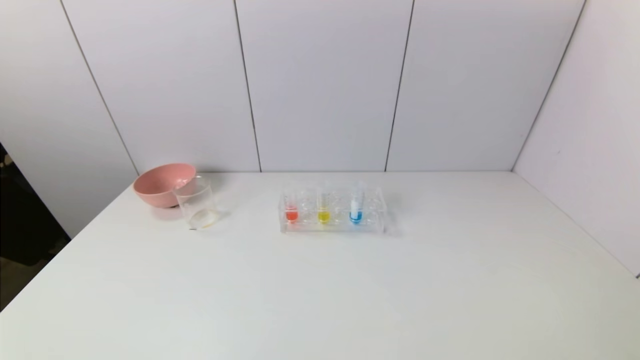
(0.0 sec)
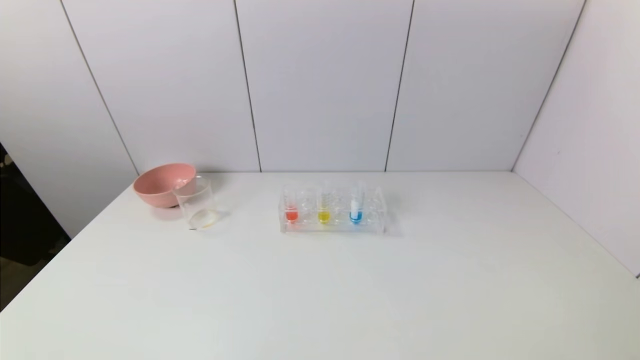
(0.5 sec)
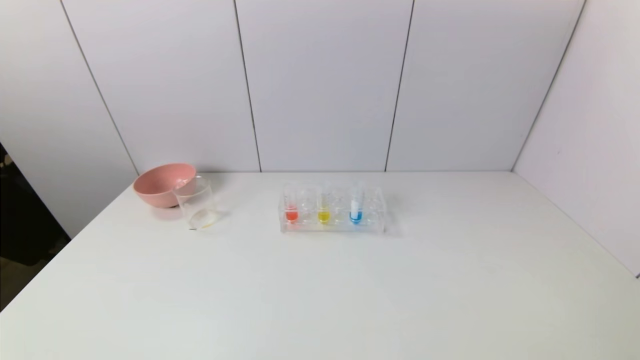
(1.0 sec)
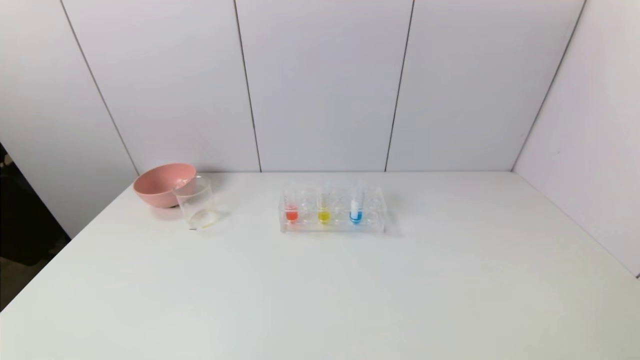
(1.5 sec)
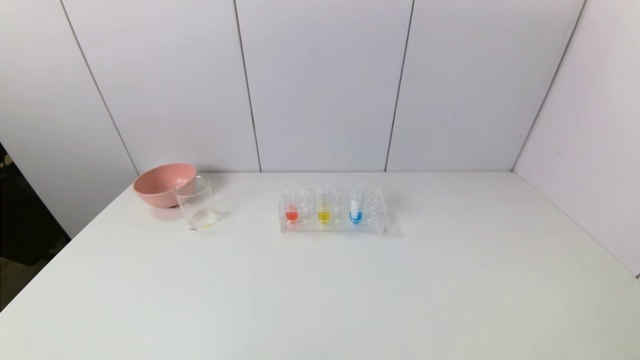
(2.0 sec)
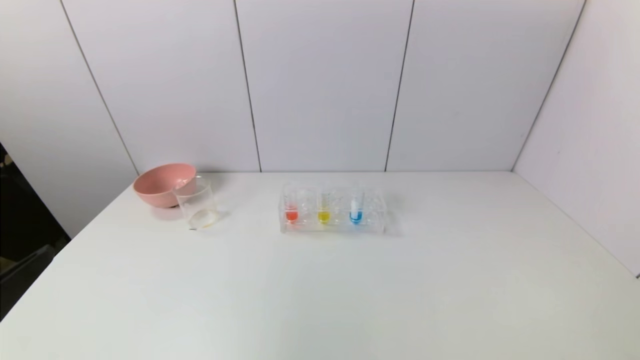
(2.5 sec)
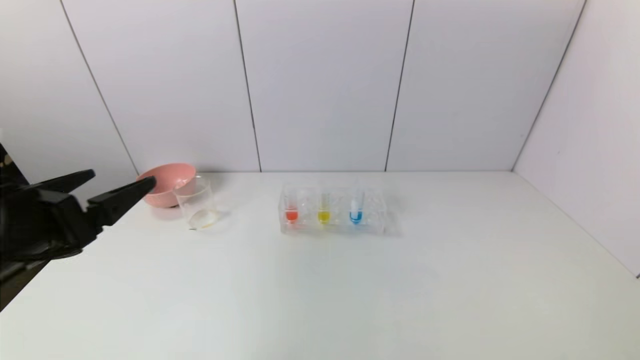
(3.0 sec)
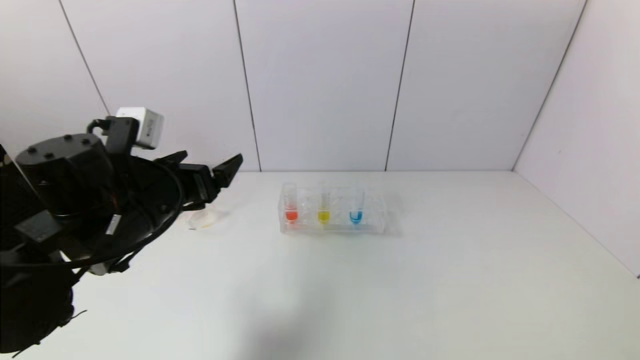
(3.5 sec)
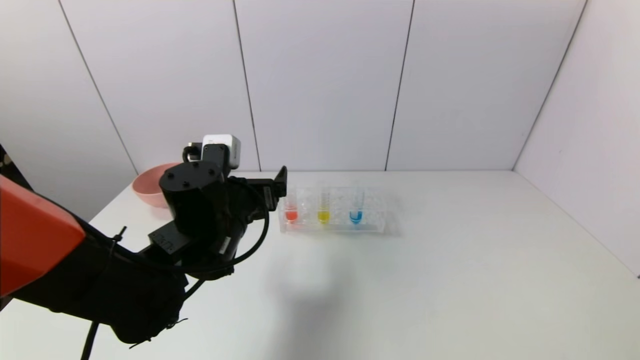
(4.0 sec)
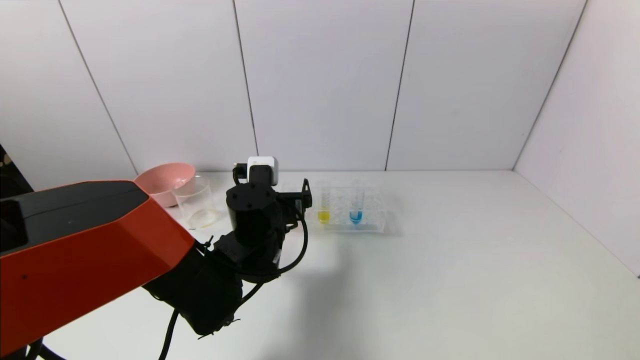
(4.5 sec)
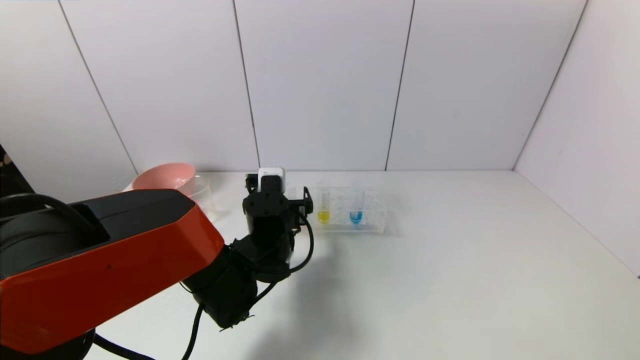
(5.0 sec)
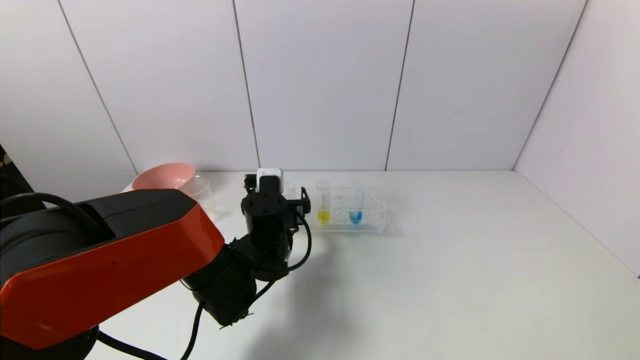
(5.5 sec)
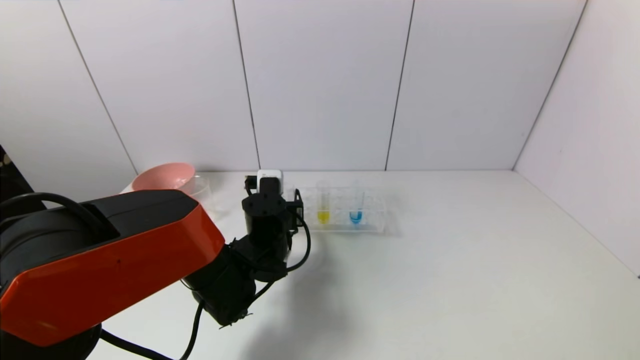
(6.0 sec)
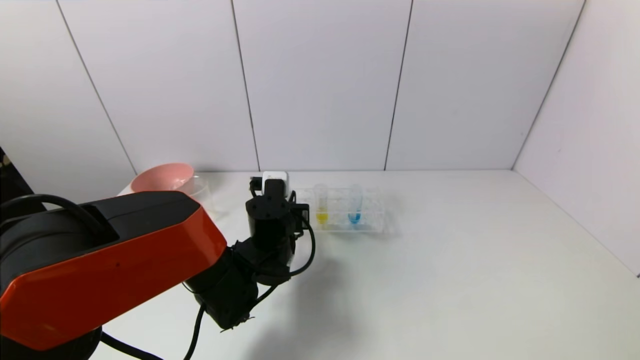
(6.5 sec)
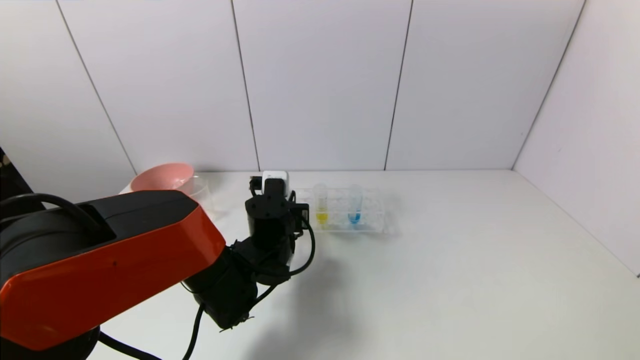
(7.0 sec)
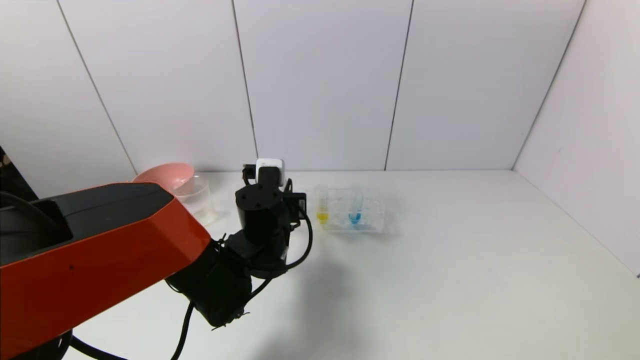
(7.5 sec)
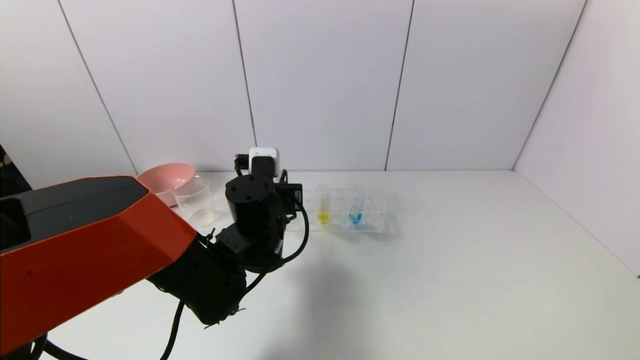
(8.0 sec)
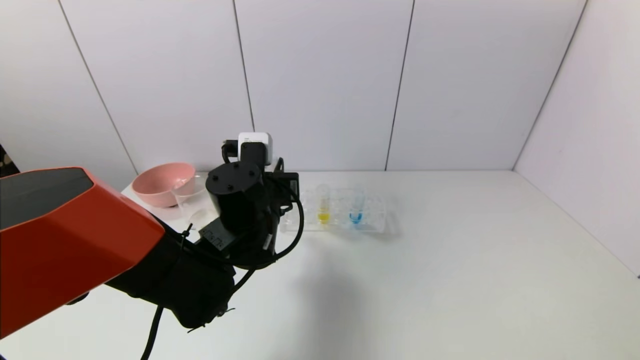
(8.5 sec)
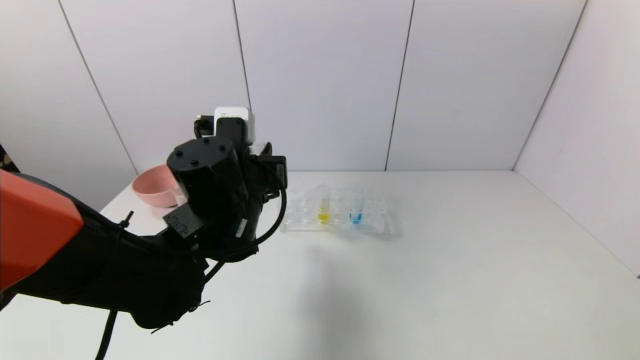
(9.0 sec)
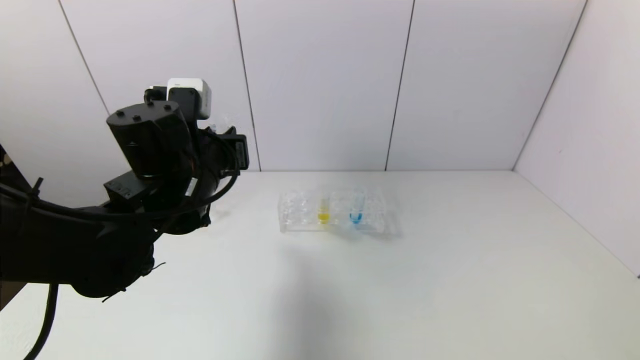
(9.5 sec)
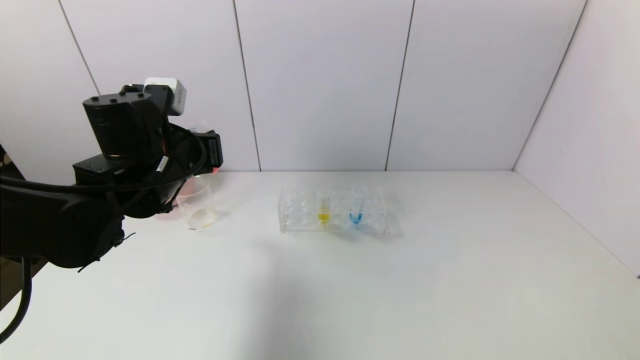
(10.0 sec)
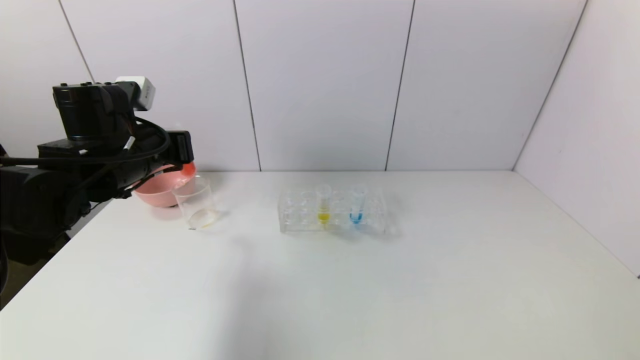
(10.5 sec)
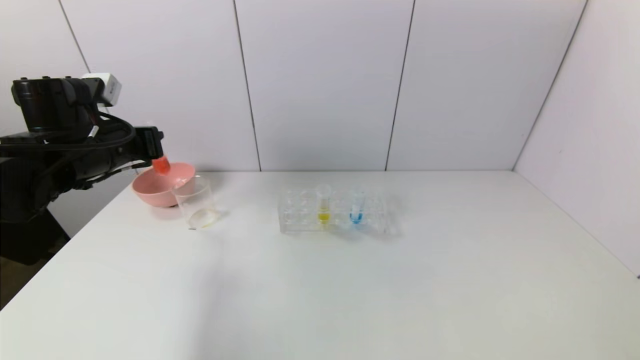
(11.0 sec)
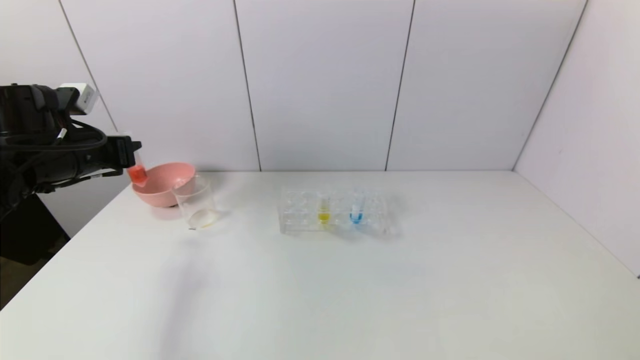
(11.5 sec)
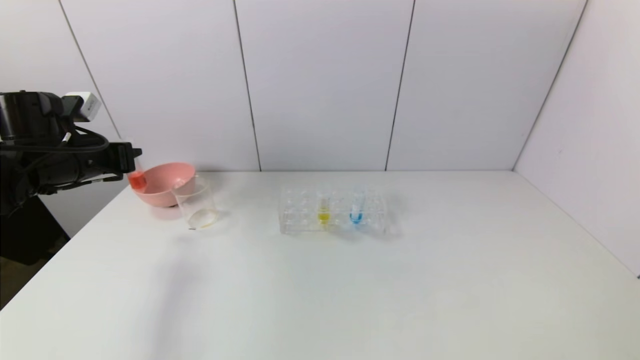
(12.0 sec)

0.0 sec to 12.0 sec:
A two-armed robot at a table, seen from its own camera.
Task of the whole recording: pick up the test tube with yellow pigment and the test tube with red pigment by grippers and pour them into the beaker.
Step, 0.0 sec to 6.5 sec: Grasp the red reagent with the left gripper.
2.0 sec to 4.0 sec: The left gripper is displaced forward and to the right by about 35 cm.
4.0 sec to 6.0 sec: The left gripper is displaced downward and forward by approximately 10 cm, and closes.
6.0 sec to 8.0 sec: The left gripper ends up about 5 cm from where it was, and closes.
8.0 sec to 10.0 sec: The left gripper heads to the left and upward, covering approximately 15 cm.
10.0 sec to 12.0 sec: The left gripper is displaced to the left by some 15 cm.

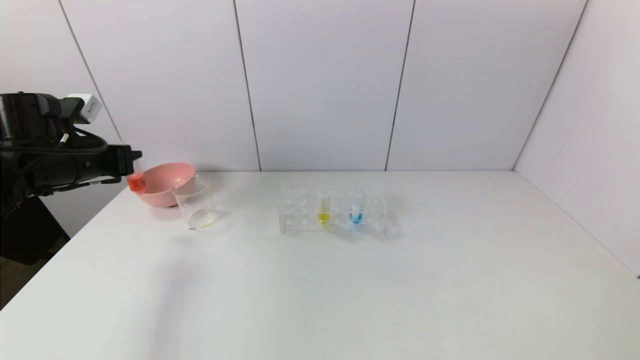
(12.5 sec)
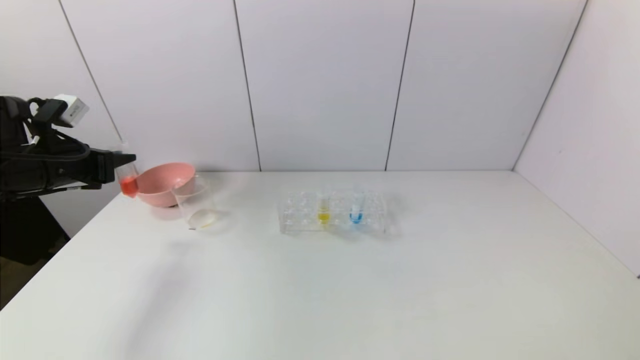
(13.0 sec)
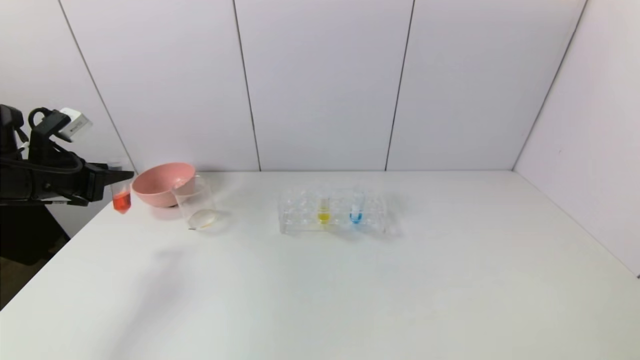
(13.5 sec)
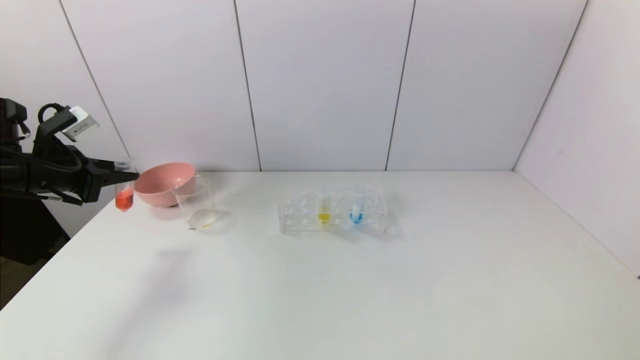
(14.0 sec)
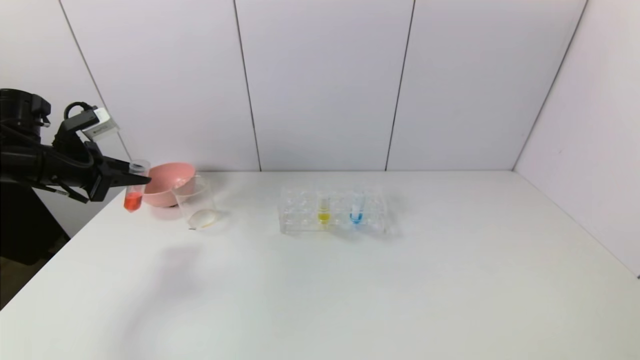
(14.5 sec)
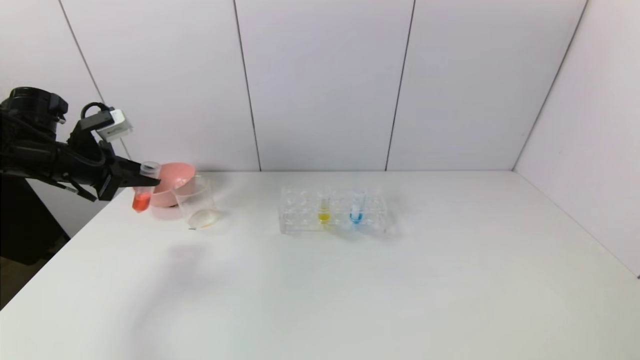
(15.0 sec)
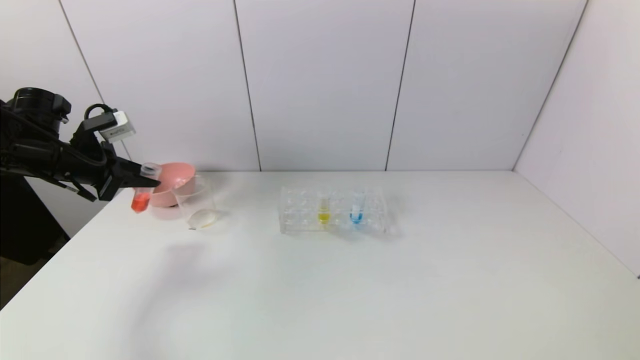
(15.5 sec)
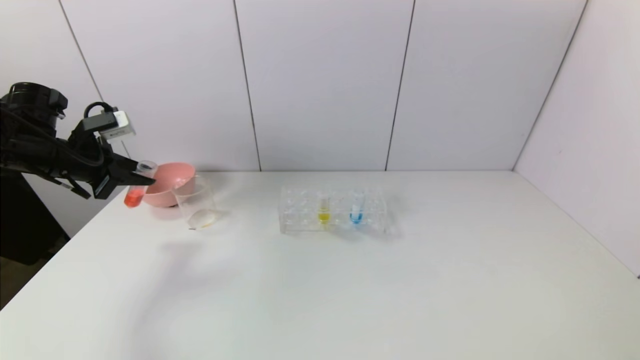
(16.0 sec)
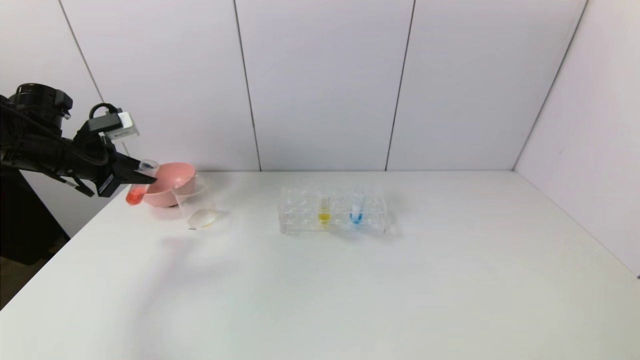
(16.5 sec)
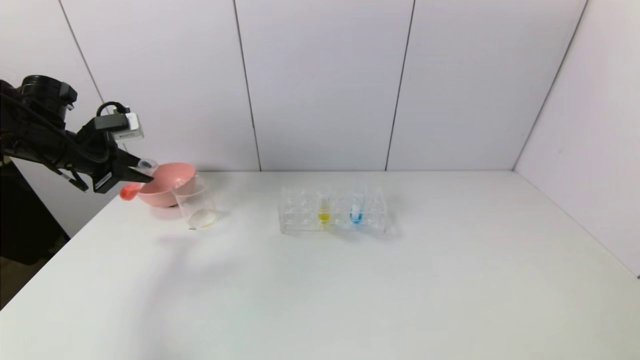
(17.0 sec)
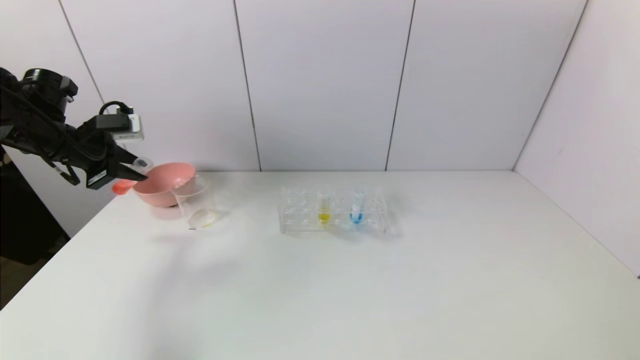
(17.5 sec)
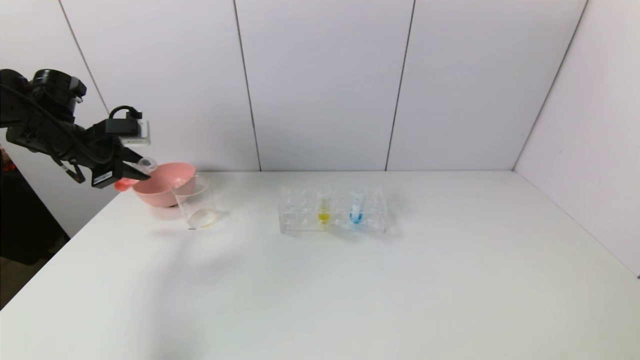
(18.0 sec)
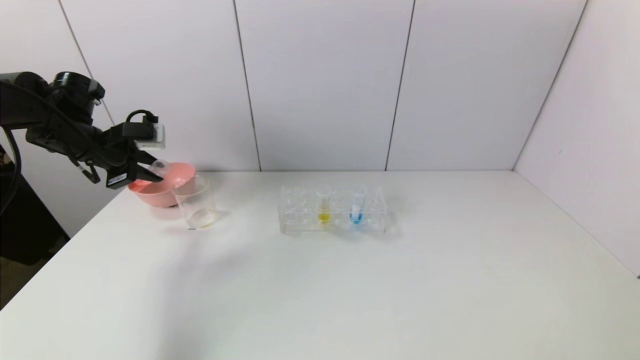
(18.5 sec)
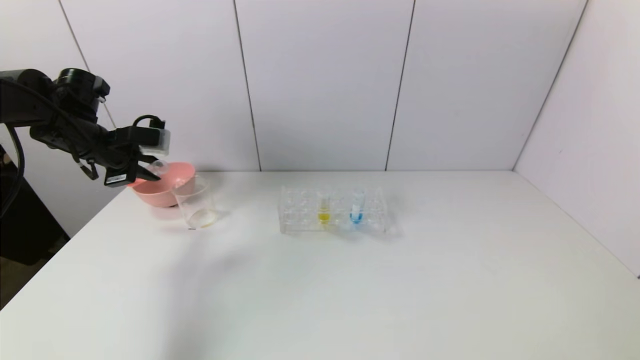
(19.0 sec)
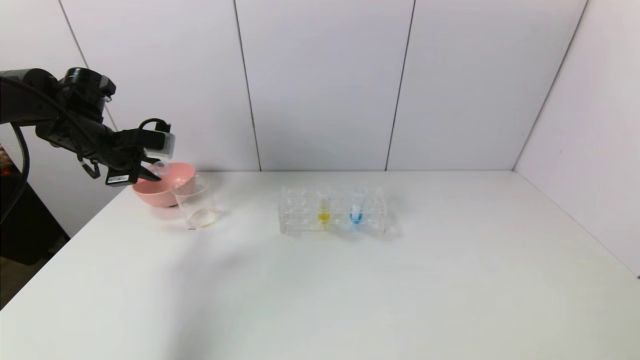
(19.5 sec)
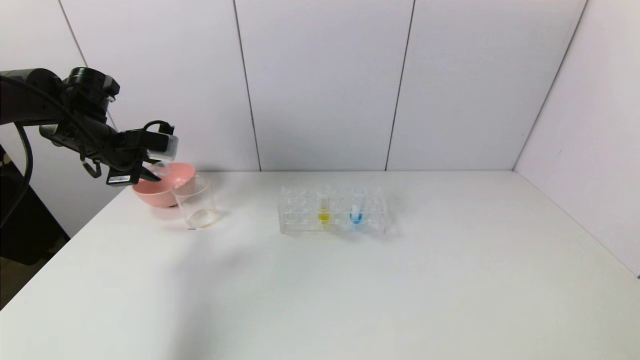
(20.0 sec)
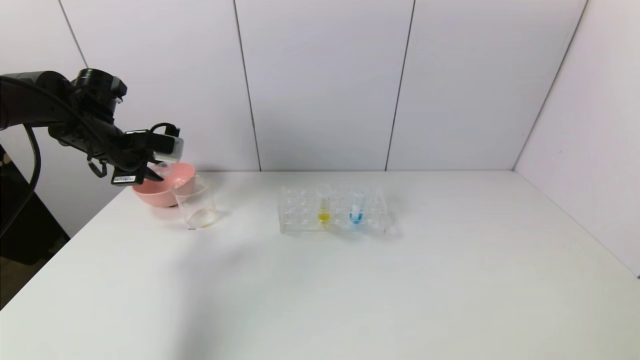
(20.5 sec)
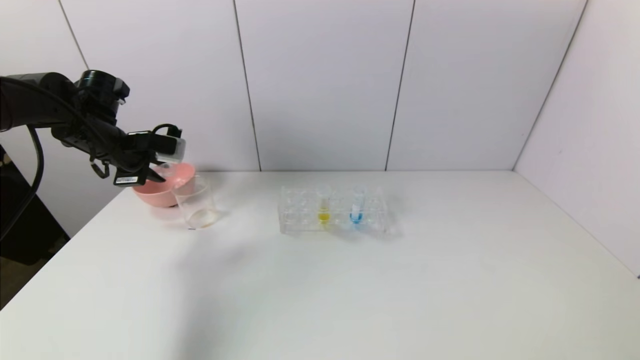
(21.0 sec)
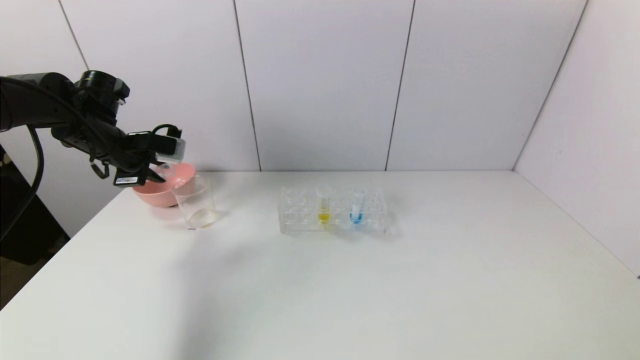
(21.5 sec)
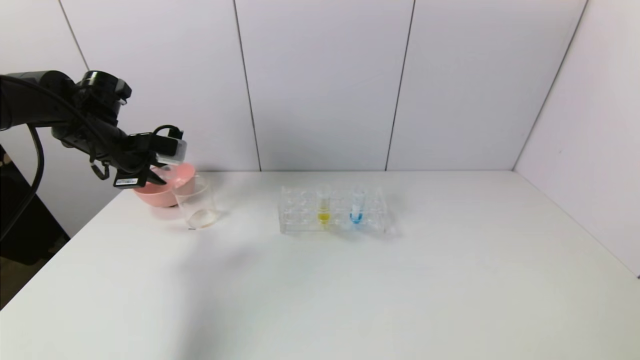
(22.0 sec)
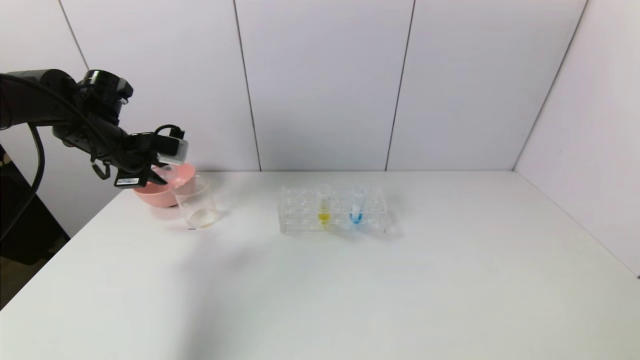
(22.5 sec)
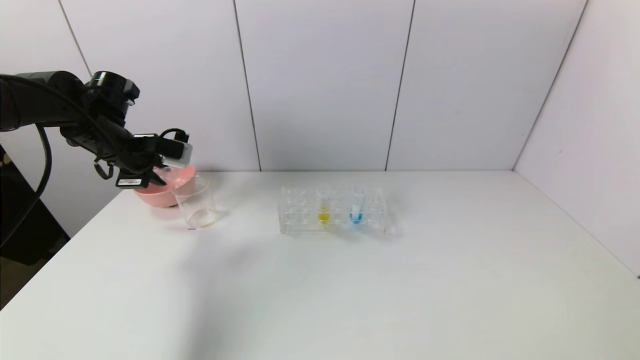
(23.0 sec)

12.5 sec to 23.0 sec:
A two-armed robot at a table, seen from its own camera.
Task of the whole recording: pick up the test tube with yellow pigment and the test tube with red pigment by grippers and pour them into the beaker.
14.5 sec to 16.5 sec: The grippers stay close to where they were, moving slightly.
19.0 sec to 21.0 sec: The grippers stay close to where they were, moving slightly.
21.0 sec to 23.0 sec: The two grippers keep their place.
